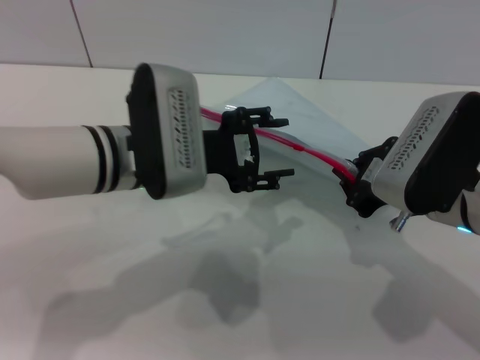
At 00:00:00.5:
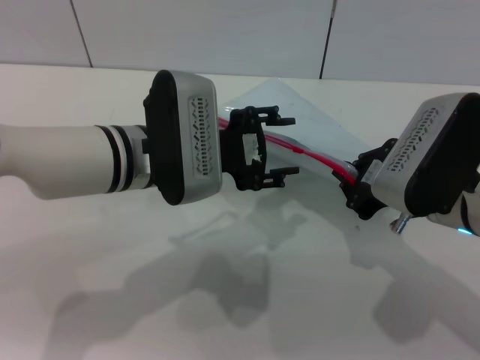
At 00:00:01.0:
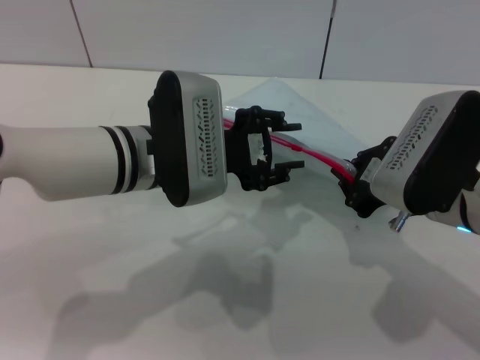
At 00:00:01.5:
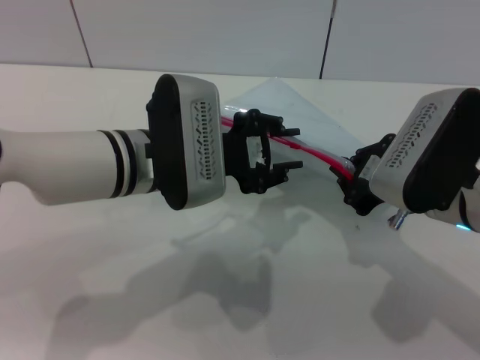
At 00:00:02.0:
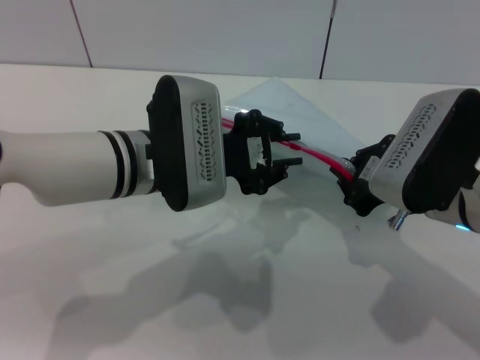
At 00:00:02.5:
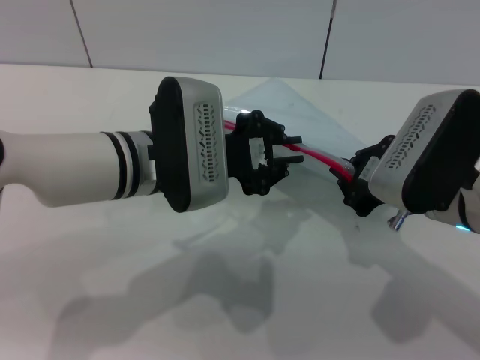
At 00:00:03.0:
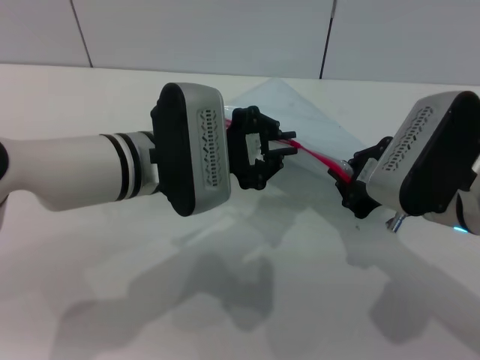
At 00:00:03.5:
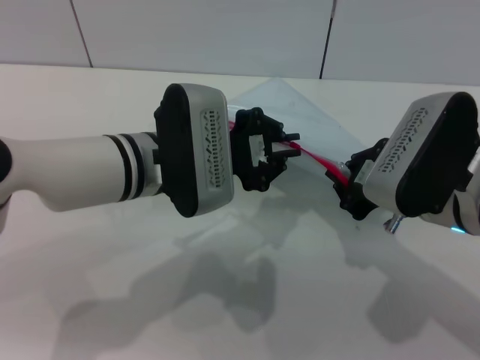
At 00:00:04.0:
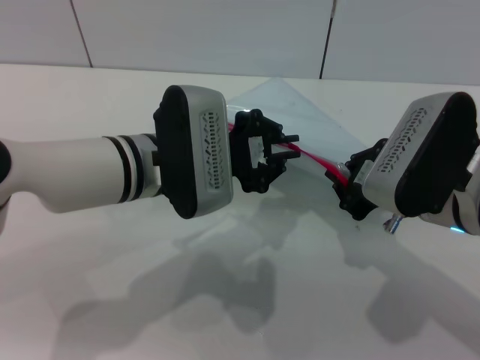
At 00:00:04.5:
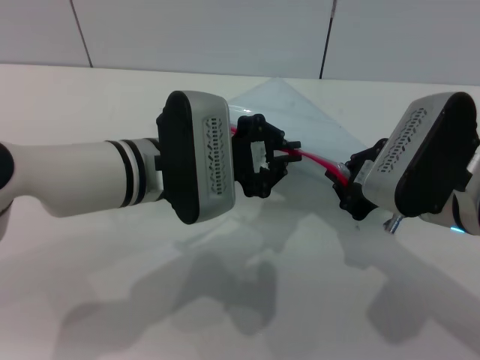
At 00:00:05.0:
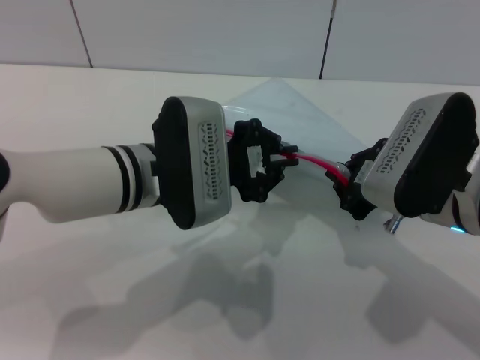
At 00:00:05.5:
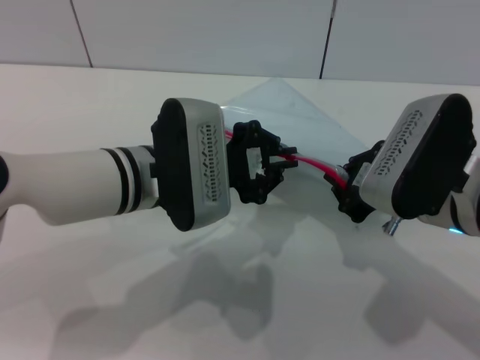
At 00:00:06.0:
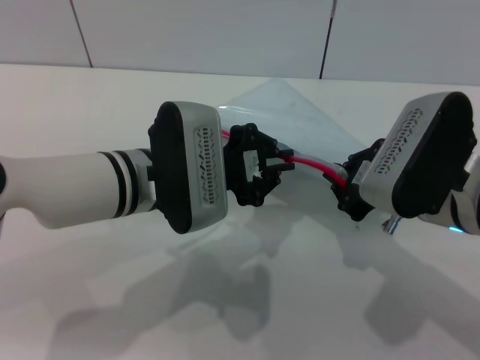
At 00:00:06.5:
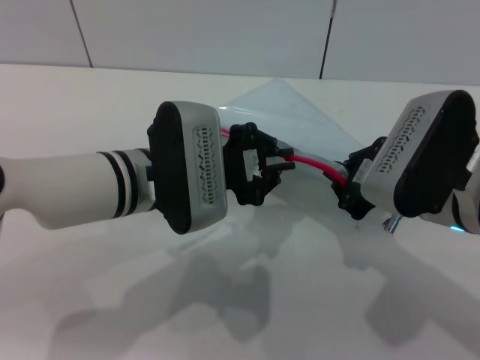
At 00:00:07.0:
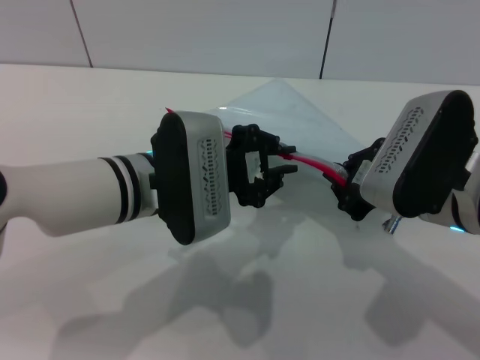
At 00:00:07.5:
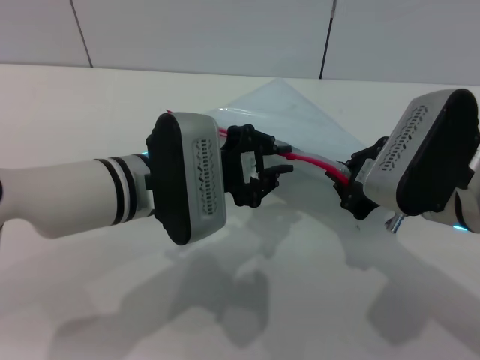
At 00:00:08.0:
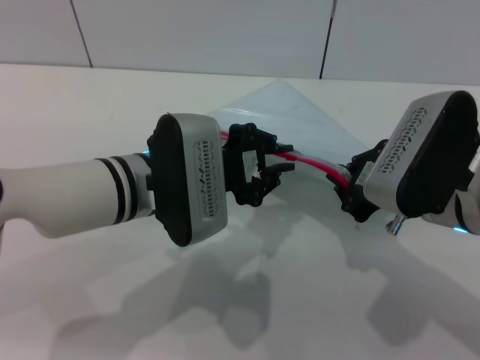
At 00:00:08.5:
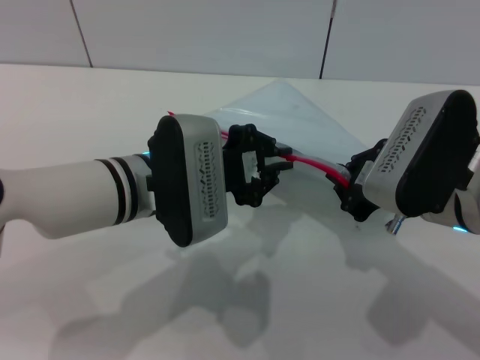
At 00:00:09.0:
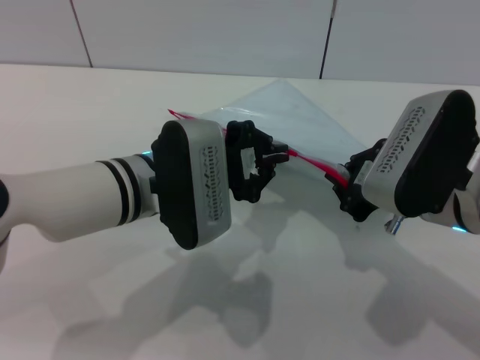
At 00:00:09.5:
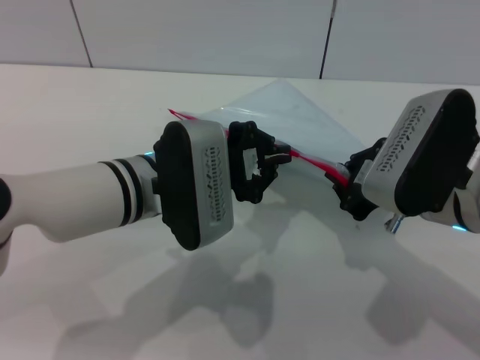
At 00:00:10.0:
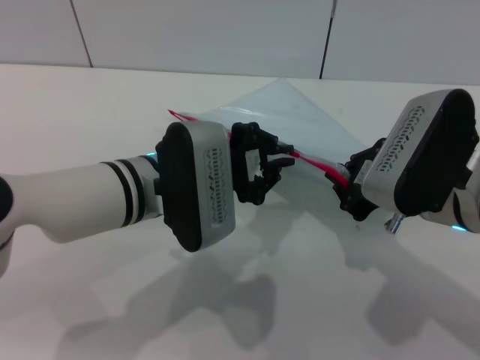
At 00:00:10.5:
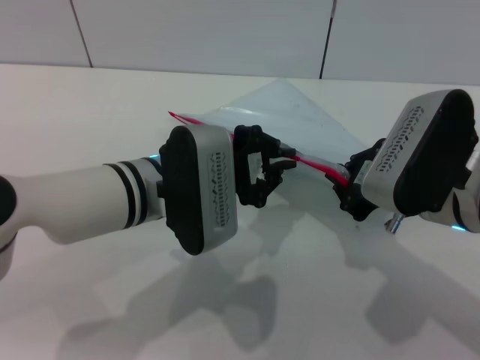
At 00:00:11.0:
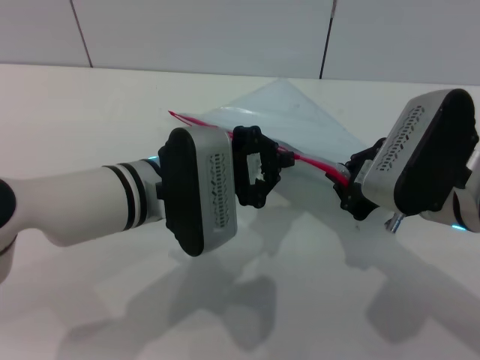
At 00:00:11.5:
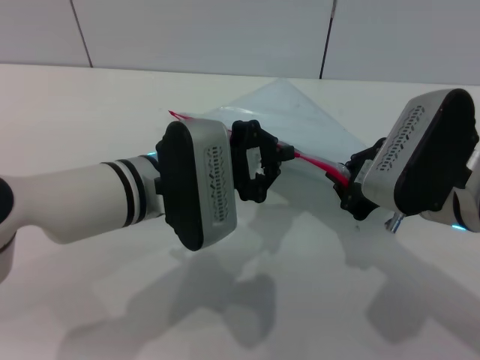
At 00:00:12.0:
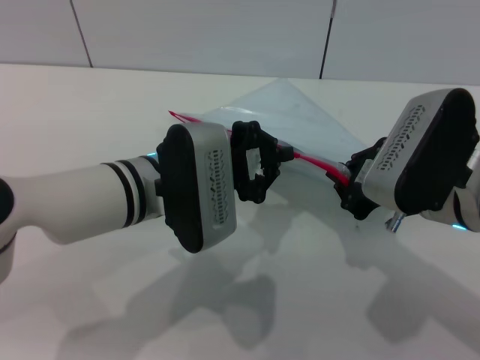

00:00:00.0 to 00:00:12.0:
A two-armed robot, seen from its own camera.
00:00:00.0 to 00:00:02.0: The left gripper closes up.
00:00:02.0 to 00:00:04.0: Both grippers stay put.
00:00:04.0 to 00:00:06.0: Both grippers stay put.
00:00:06.0 to 00:00:08.0: Both grippers stay put.
00:00:08.0 to 00:00:12.0: Both grippers stay put.

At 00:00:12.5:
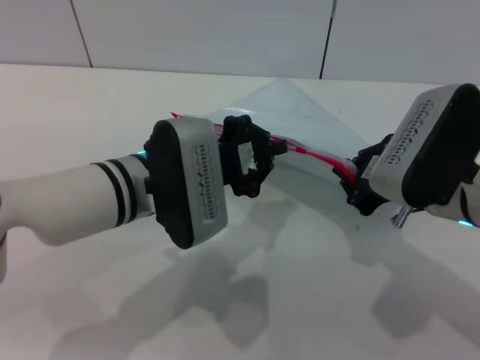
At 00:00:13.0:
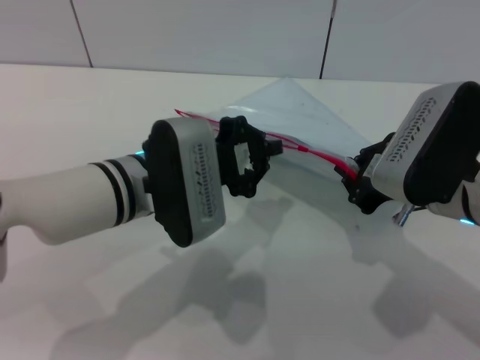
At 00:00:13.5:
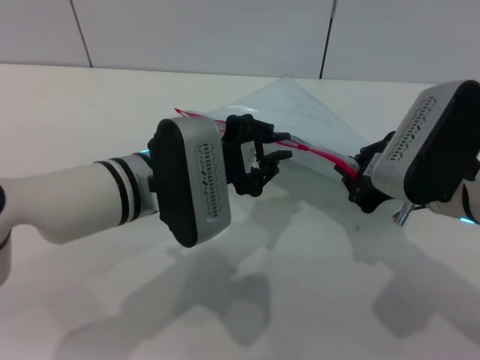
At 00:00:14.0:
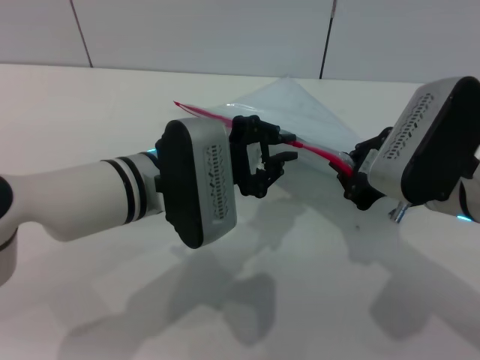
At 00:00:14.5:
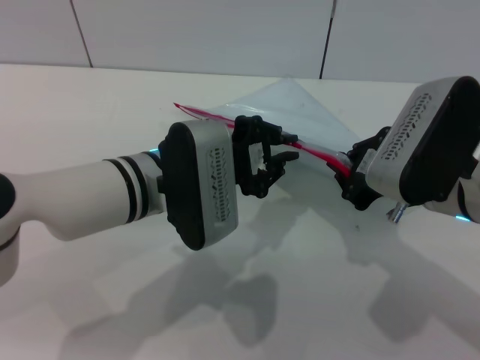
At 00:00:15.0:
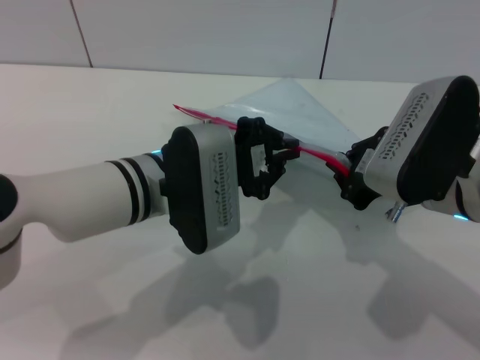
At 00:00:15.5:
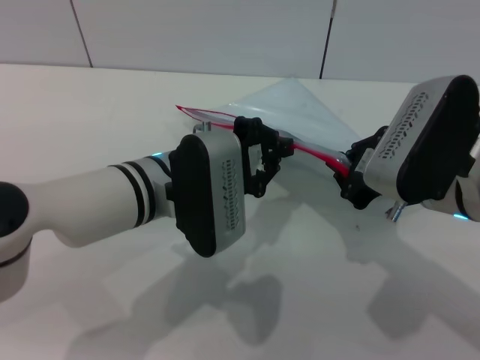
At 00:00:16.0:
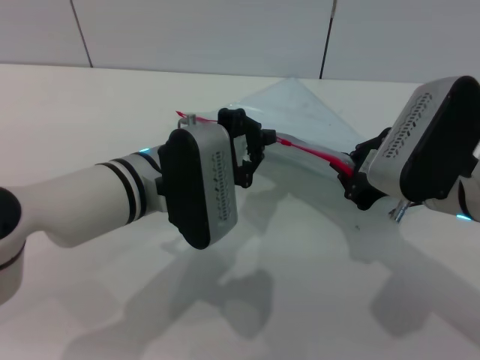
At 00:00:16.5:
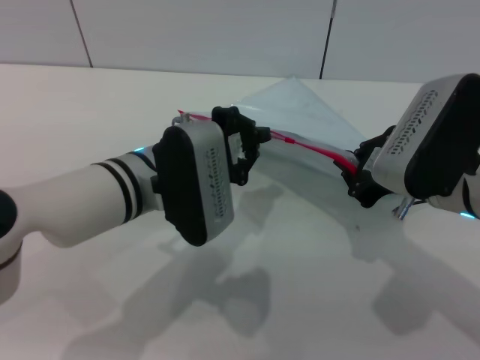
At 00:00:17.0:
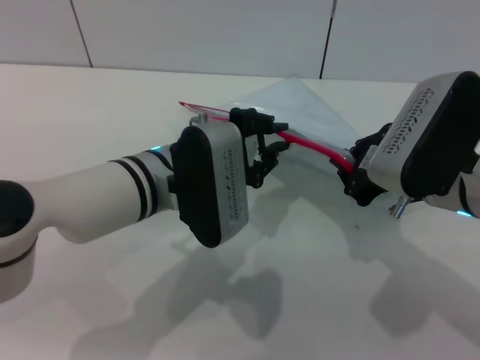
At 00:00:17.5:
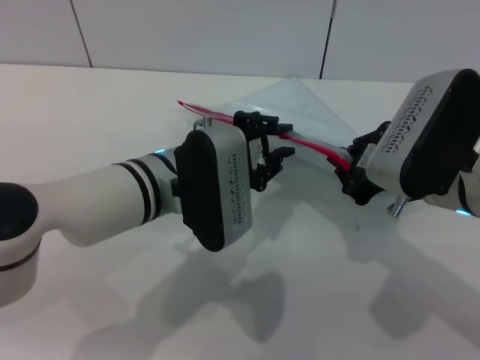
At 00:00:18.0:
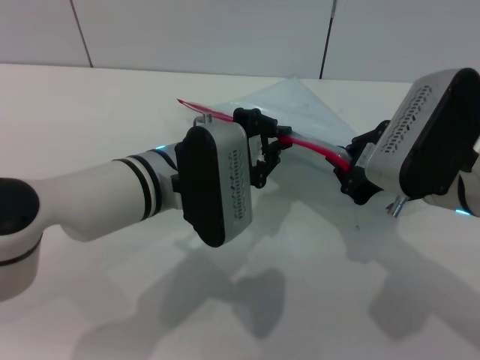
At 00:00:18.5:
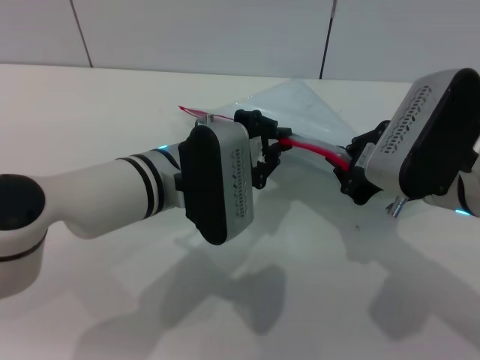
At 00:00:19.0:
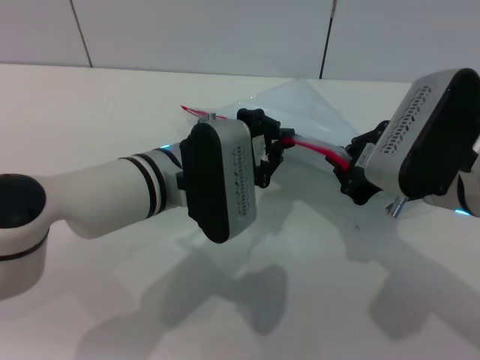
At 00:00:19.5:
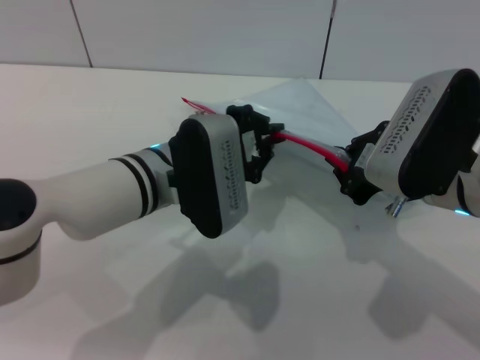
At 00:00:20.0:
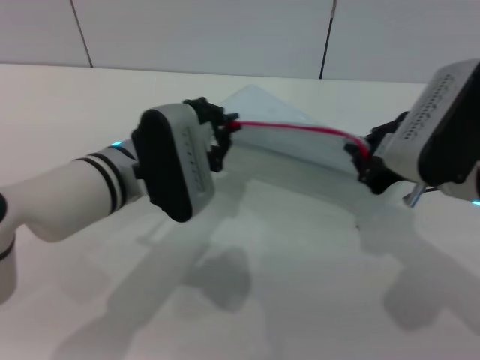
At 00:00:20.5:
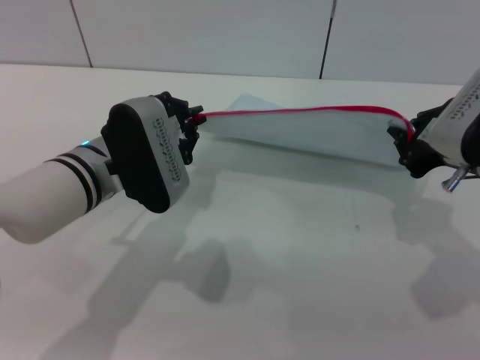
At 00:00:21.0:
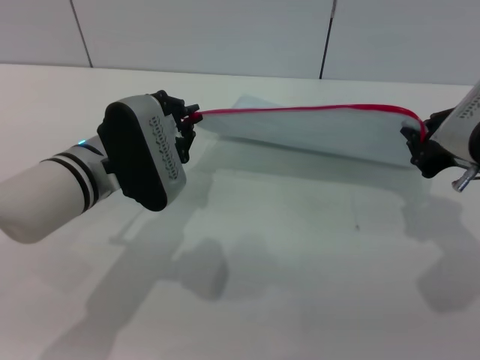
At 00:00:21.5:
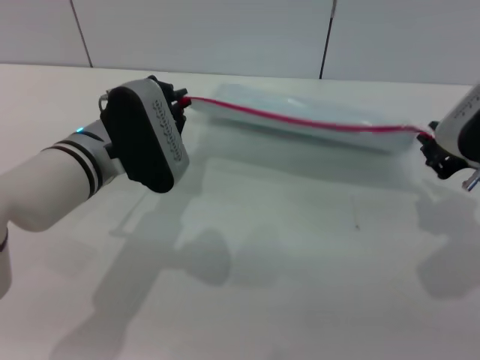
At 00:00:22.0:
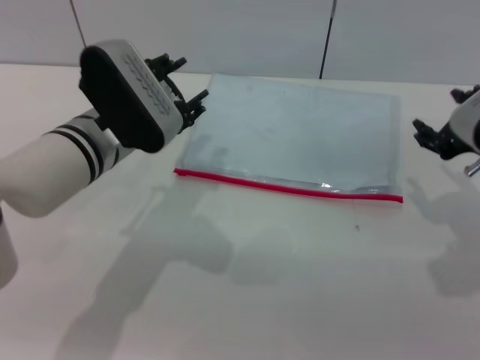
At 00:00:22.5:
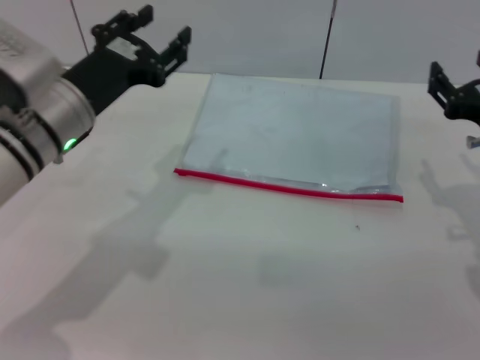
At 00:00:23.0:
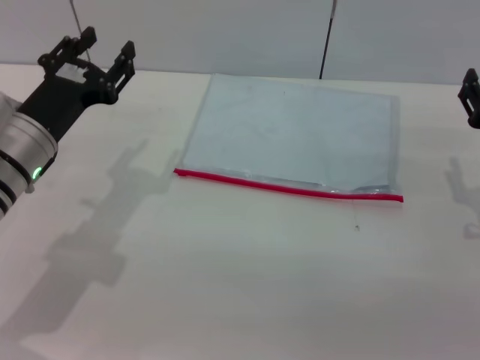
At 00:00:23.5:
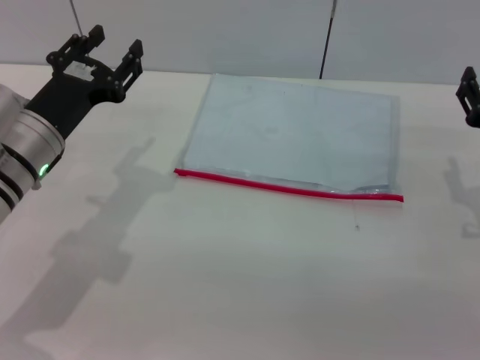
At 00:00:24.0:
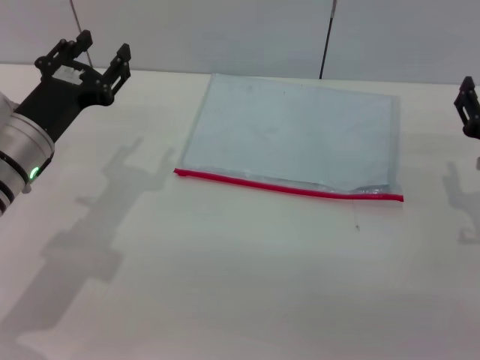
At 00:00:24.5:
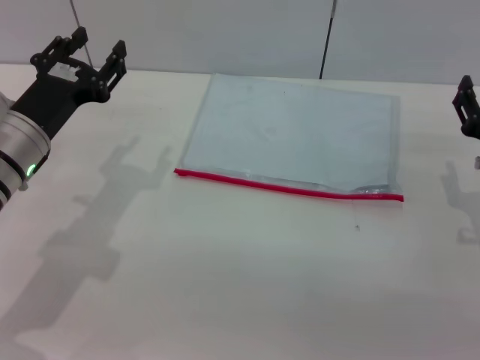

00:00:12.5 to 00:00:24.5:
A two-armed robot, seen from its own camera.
Step, 00:00:12.5 to 00:00:21.5: Pulling up the zipper on the transparent plastic bag with the left gripper to close it.
Step, 00:00:22.5 to 00:00:23.0: Place the transparent plastic bag.
00:00:12.5 to 00:00:14.5: The two grippers keep their place.
00:00:14.5 to 00:00:18.5: The grippers make only small movements.
00:00:18.5 to 00:00:20.5: The left gripper travels to the left by some 5 cm.
00:00:20.5 to 00:00:22.5: The right gripper changes place by about 5 cm, and opens, while the left gripper changes place by roughly 5 cm, and opens.
00:00:22.5 to 00:00:24.5: The left gripper changes place by approximately 5 cm, while the right gripper heads downward, covering some 5 cm.
